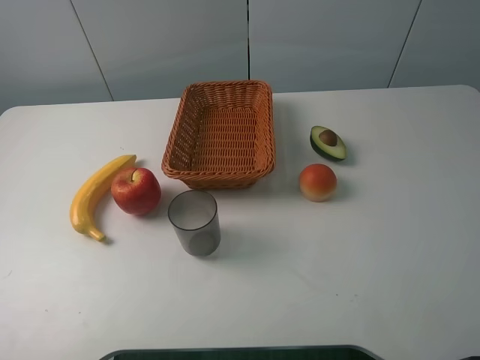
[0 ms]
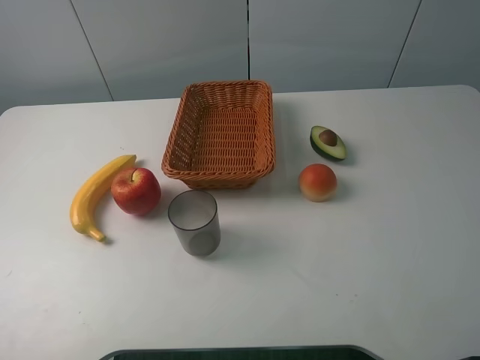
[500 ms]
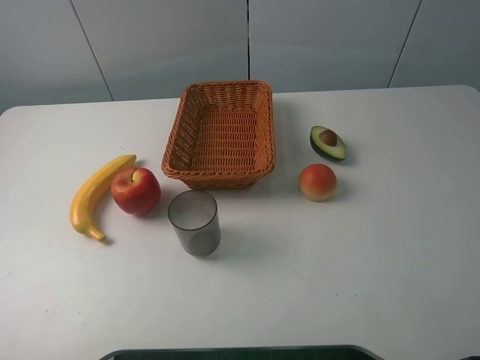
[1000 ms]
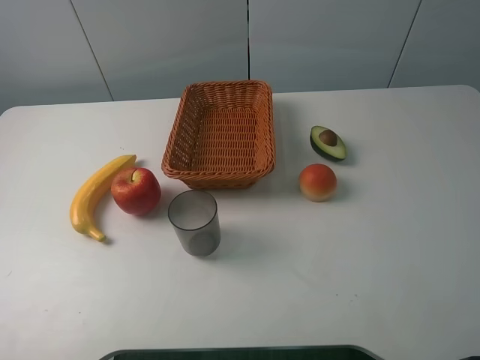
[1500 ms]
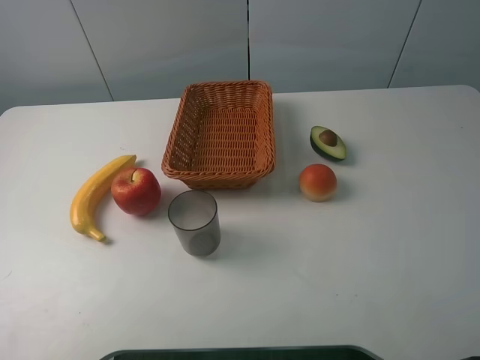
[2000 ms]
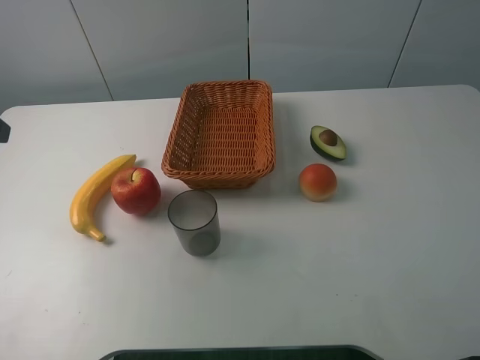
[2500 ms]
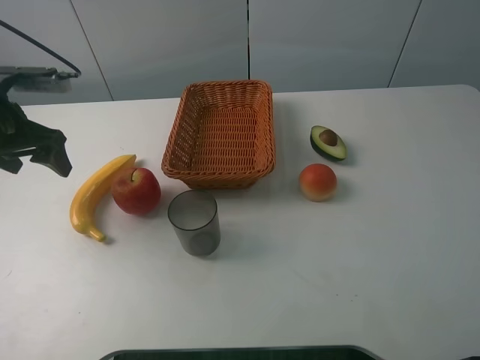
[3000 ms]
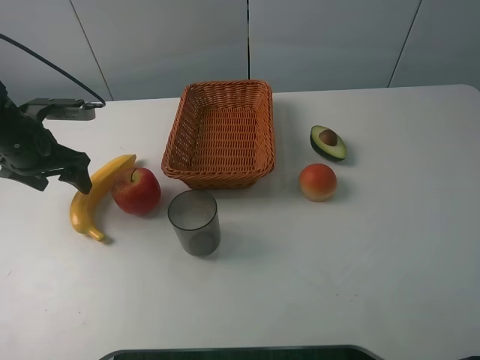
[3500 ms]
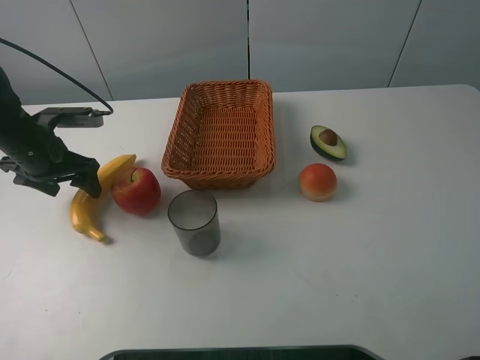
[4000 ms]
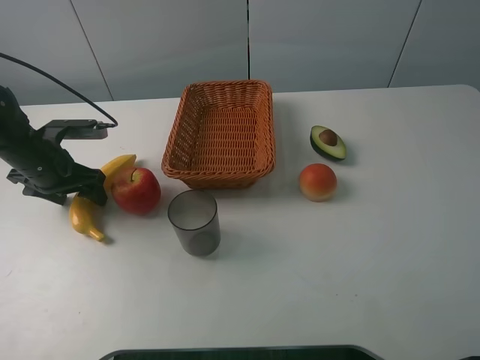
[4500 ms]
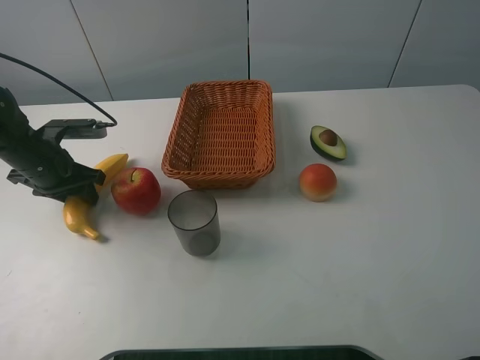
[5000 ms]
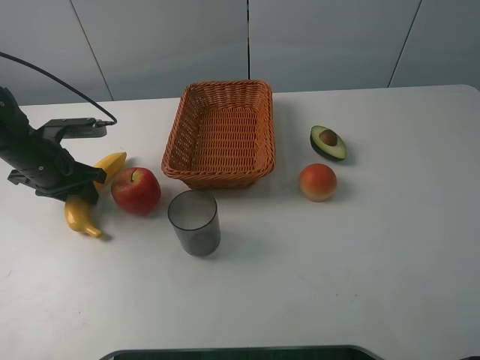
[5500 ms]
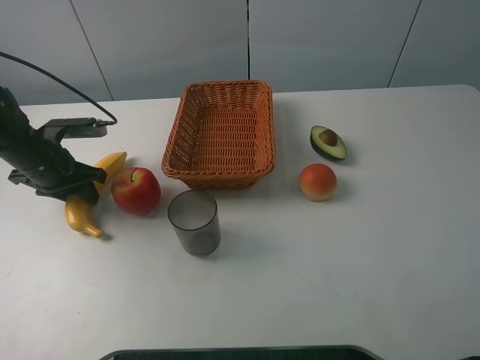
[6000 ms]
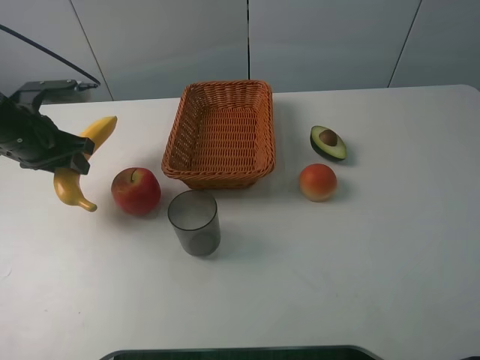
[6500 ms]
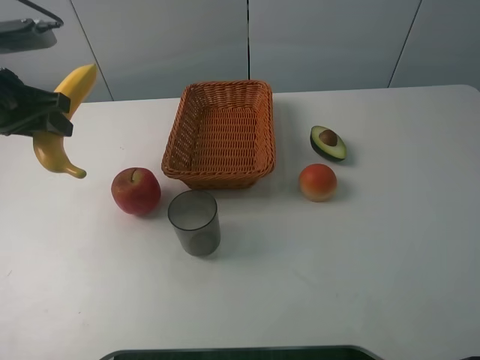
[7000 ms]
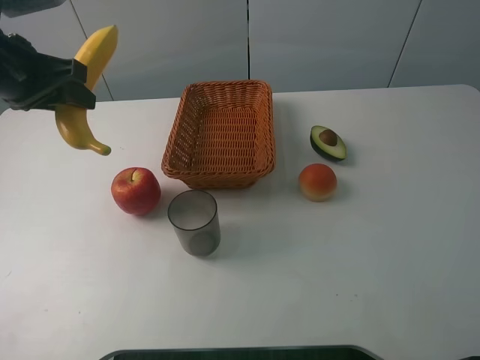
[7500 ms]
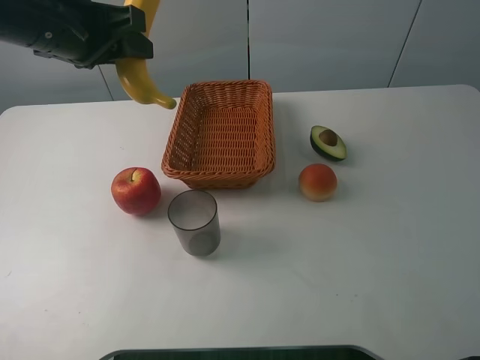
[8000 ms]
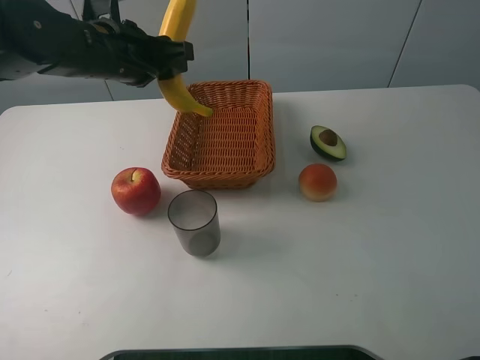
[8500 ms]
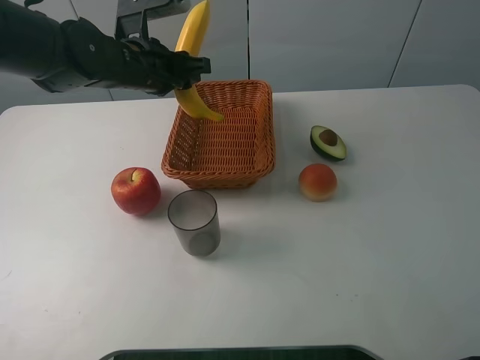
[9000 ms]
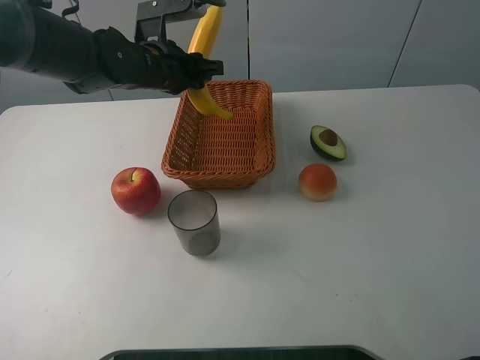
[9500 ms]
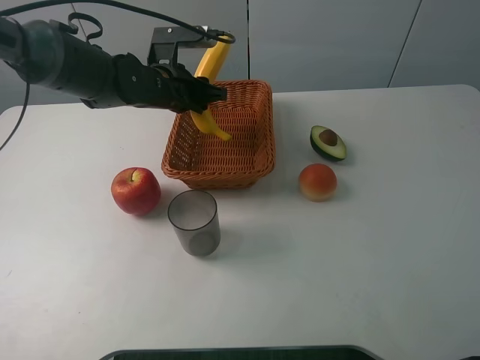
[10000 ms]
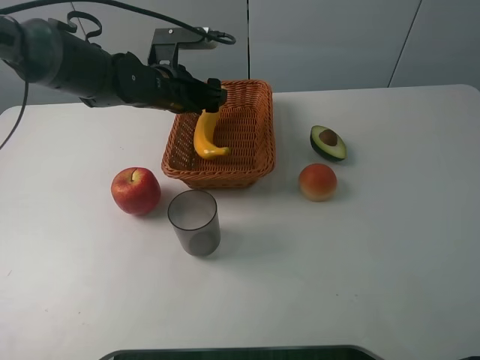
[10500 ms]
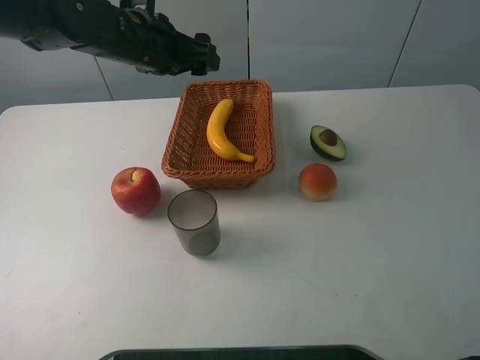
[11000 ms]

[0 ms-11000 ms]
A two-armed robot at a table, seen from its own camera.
2000 ms to 3500 ms: The left gripper heads forward and downward, covering roughly 30 cm.
3500 ms to 5500 ms: The left gripper closes up.
5500 ms to 7500 ms: The left gripper shifts approximately 15 cm upward.
7500 ms to 9000 ms: The left gripper goes approximately 15 cm to the right, forward and downward.
9000 ms to 11000 ms: The left gripper opens up.

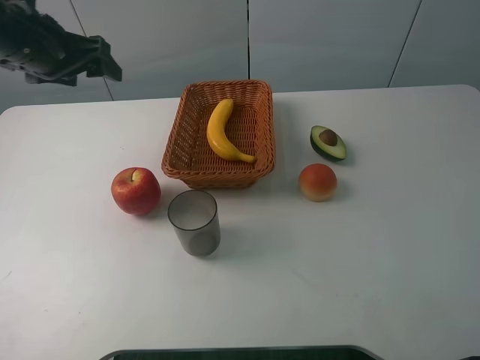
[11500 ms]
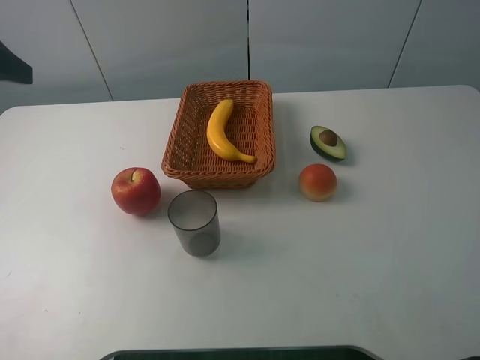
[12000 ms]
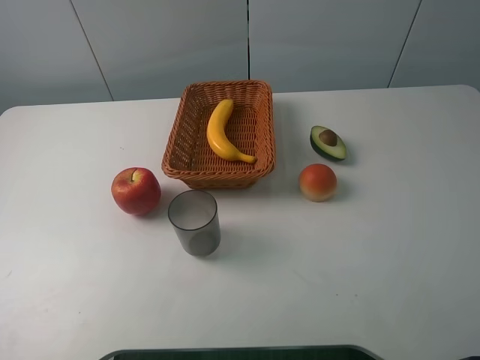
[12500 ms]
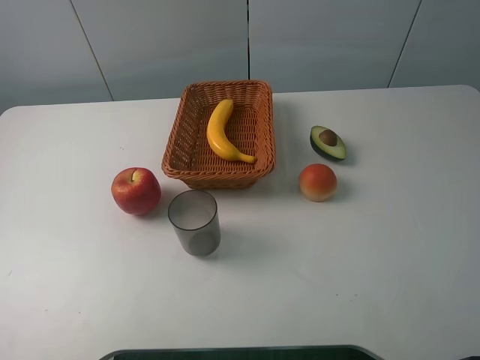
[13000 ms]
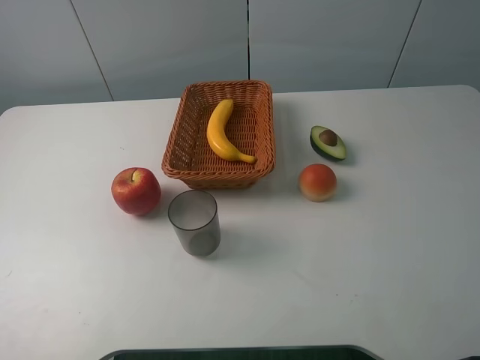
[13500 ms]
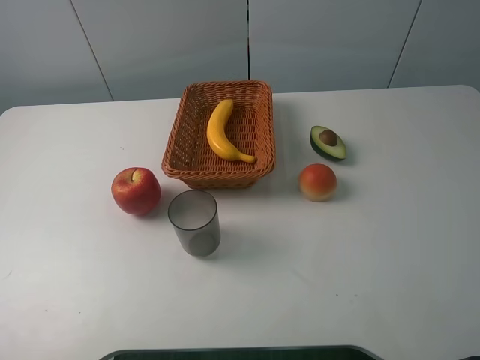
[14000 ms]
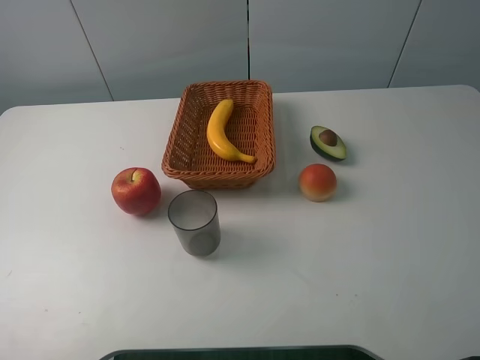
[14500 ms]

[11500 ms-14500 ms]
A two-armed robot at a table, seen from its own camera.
11500 ms to 13000 ms: The left gripper heads backward, covering some 35 cm.
